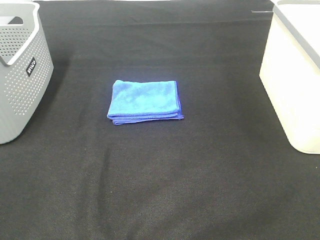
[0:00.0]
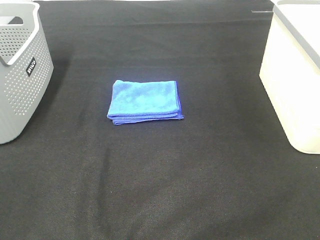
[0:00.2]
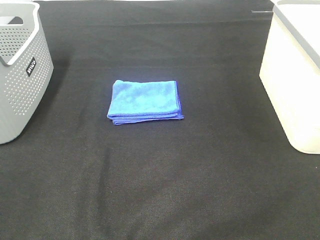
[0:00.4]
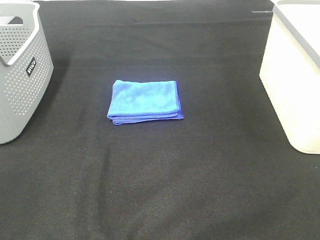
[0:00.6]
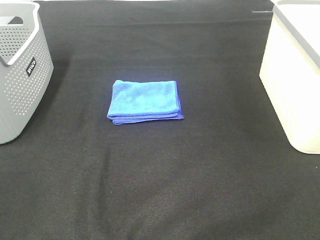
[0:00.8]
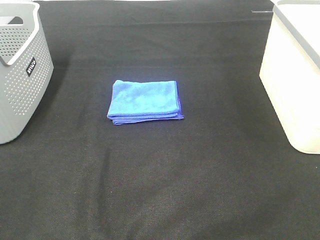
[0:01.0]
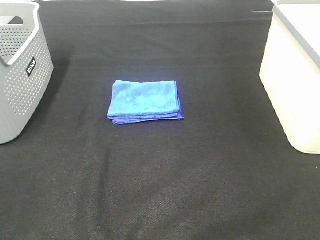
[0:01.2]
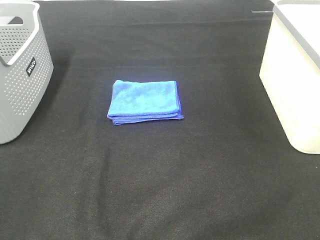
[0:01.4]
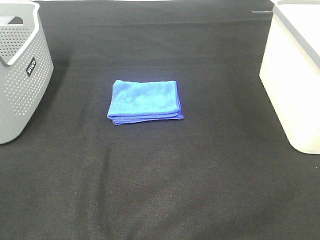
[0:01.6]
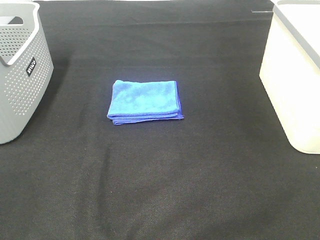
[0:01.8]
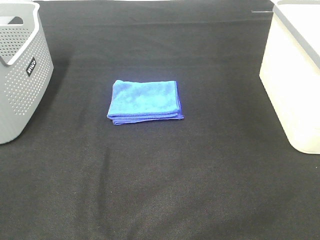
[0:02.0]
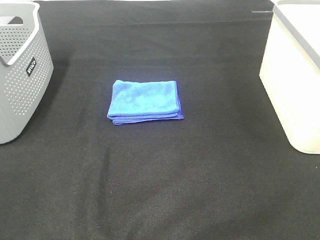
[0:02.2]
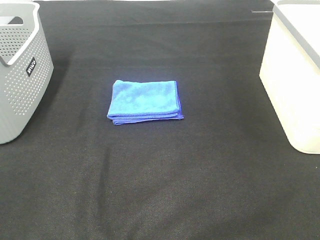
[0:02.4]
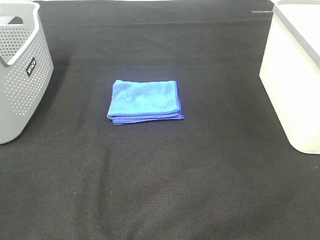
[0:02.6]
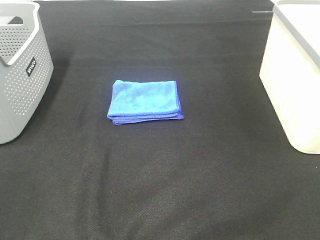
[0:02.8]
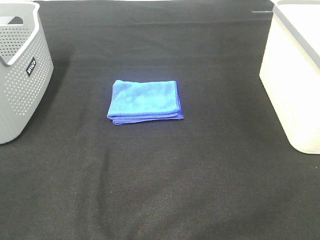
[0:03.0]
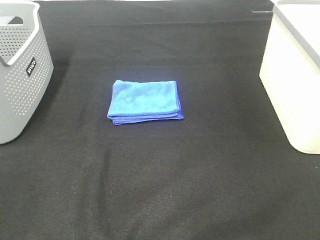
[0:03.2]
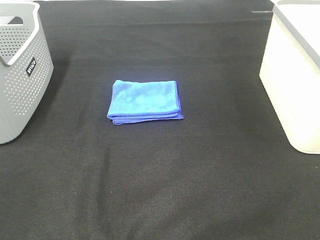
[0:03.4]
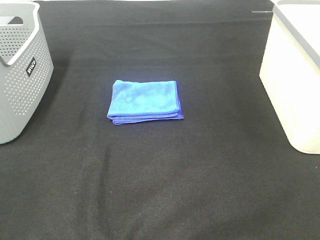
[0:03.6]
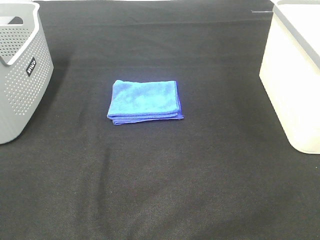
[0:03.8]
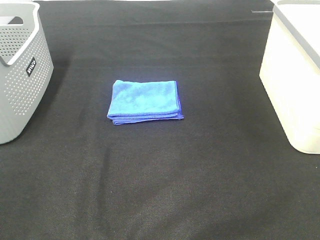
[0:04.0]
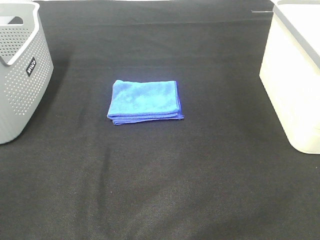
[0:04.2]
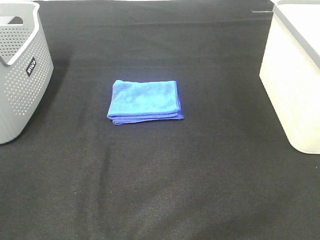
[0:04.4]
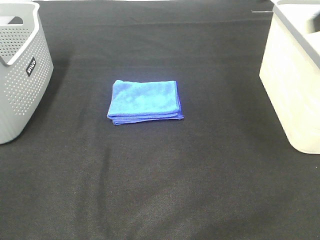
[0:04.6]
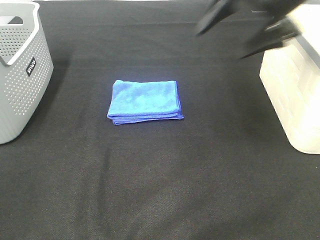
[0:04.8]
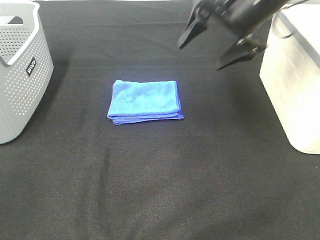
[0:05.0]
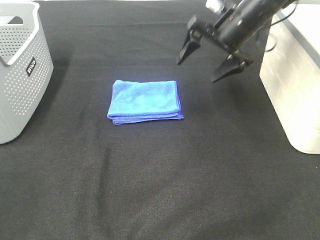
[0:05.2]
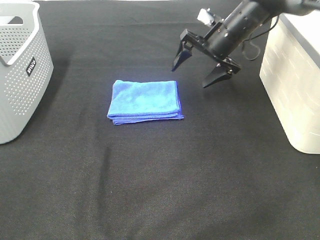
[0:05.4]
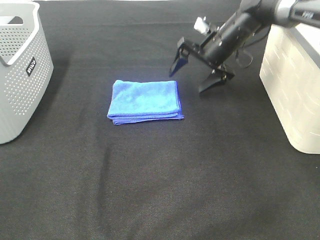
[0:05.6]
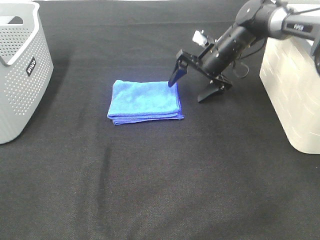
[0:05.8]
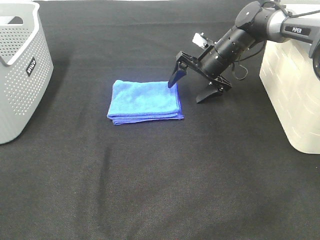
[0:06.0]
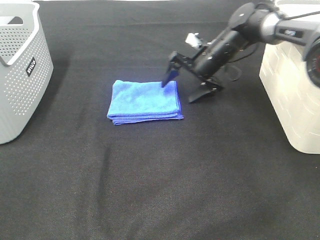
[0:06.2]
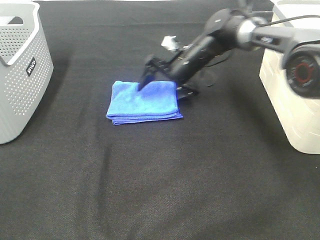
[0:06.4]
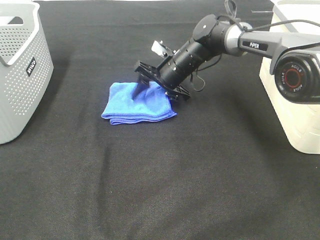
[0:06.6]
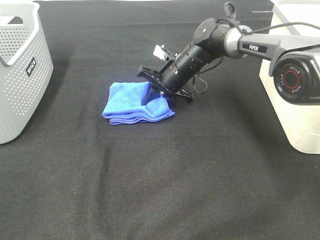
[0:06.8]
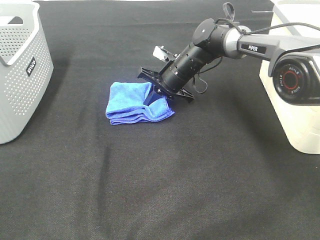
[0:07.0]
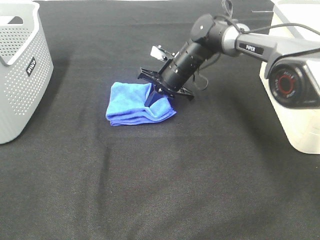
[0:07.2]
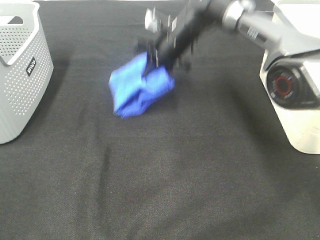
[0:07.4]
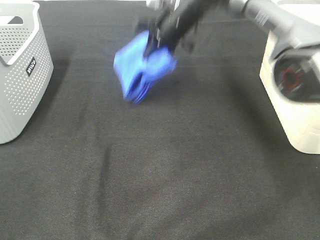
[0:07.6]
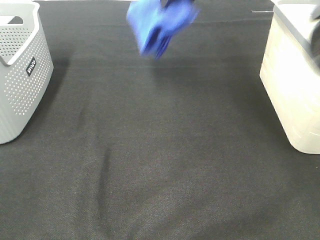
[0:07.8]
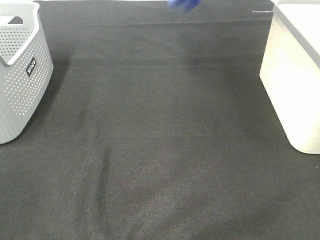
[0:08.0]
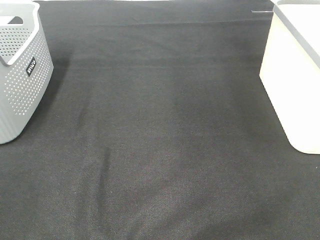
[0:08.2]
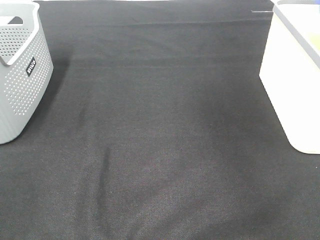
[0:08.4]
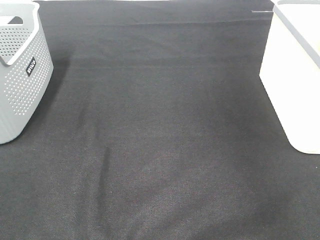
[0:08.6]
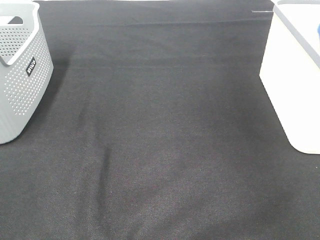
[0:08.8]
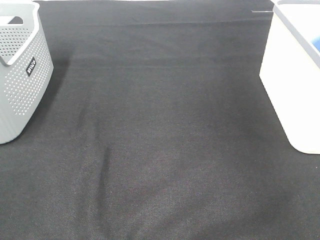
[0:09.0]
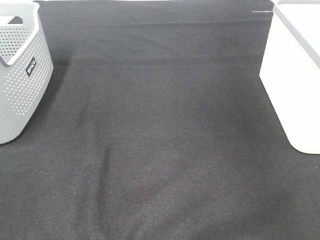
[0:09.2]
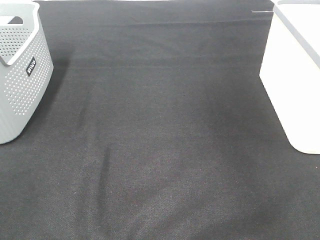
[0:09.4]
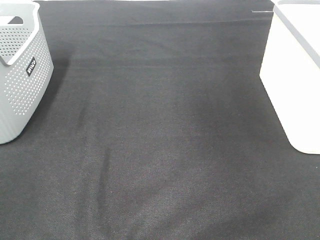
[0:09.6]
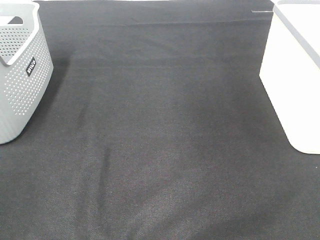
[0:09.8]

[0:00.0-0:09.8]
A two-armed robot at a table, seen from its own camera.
Step, 0:00.0 to 0:06.8: Right hand: grab the folded blue towel.
Step, 0:07.0 to 0:09.2: Right hand: place the blue towel in right basket.
0:00.0 to 0:02.8: Both grippers stay put.
0:04.2 to 0:05.6: The right gripper goes roughly 40 cm forward, downward and to the left.
0:05.6 to 0:07.0: The right gripper heads to the left and downward, covering some 10 cm, and closes up.
0:07.0 to 0:08.4: The right gripper is displaced to the right and upward by roughly 40 cm.

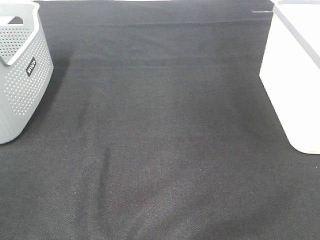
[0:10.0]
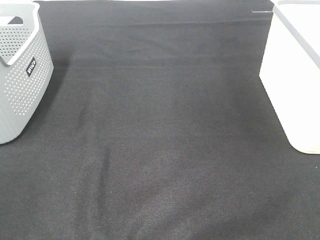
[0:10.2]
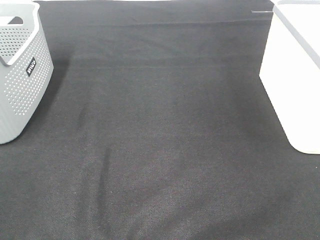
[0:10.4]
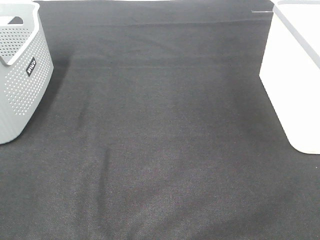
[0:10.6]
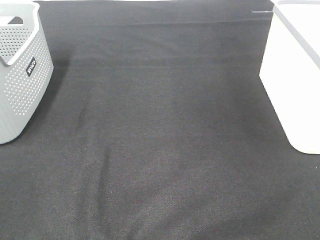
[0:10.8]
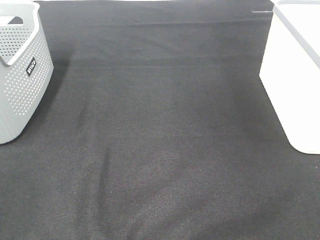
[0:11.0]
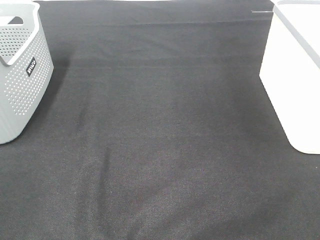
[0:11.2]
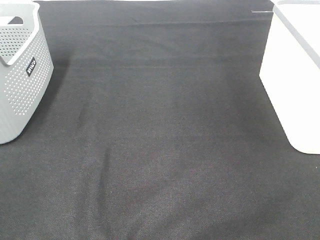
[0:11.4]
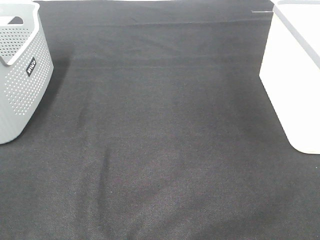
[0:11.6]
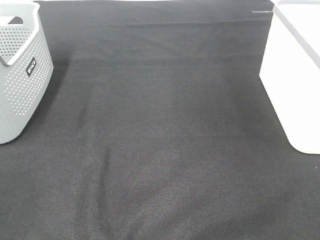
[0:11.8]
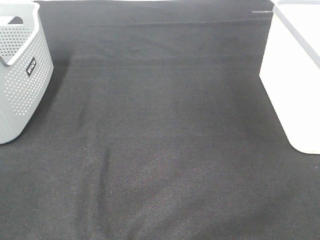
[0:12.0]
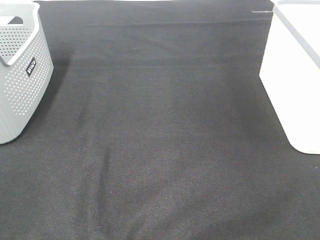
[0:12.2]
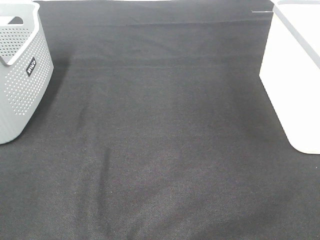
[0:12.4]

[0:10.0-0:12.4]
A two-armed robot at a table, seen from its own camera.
0:11.2 to 0:12.4: Both grippers stay about where they are.

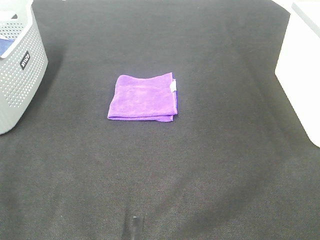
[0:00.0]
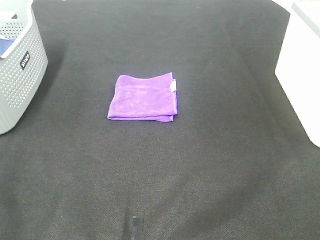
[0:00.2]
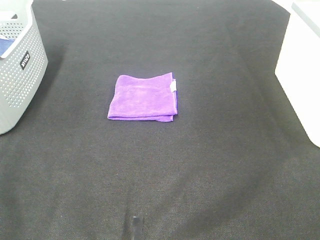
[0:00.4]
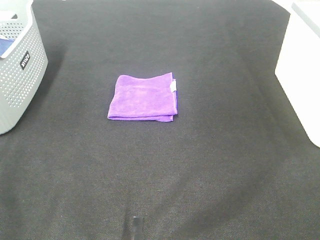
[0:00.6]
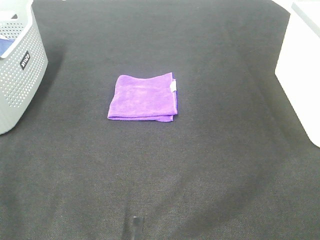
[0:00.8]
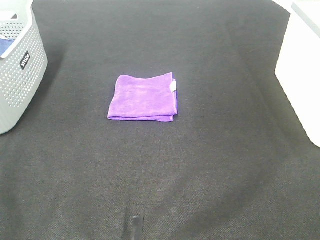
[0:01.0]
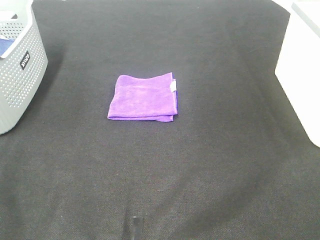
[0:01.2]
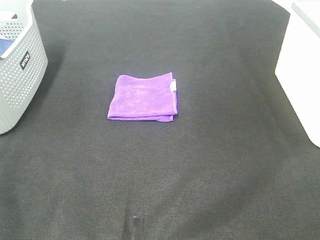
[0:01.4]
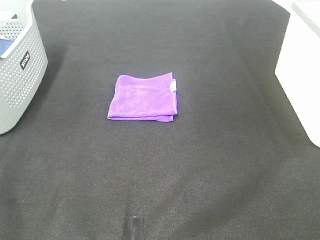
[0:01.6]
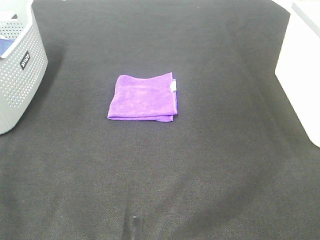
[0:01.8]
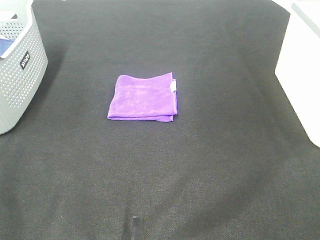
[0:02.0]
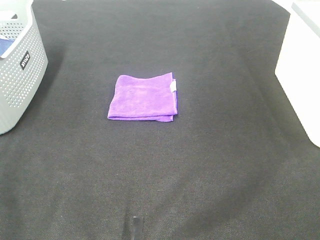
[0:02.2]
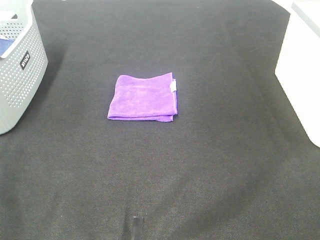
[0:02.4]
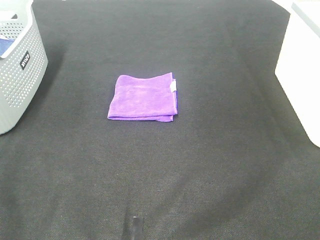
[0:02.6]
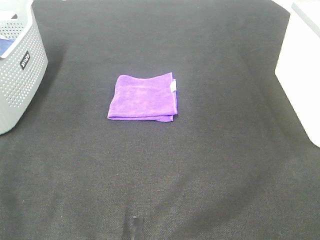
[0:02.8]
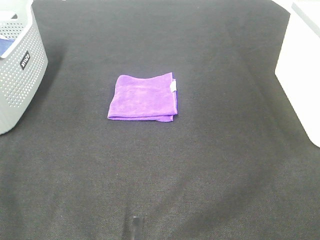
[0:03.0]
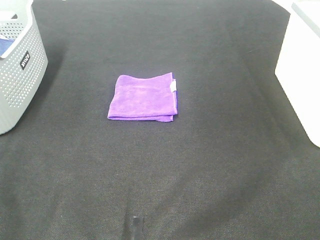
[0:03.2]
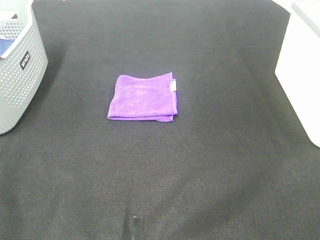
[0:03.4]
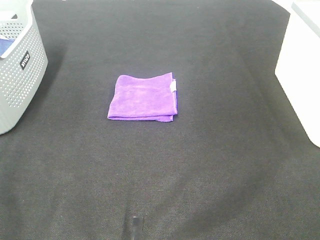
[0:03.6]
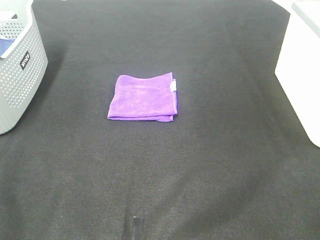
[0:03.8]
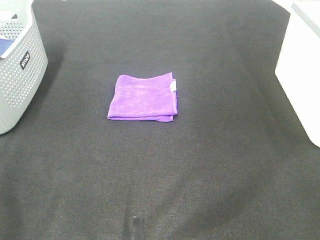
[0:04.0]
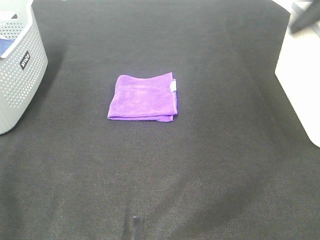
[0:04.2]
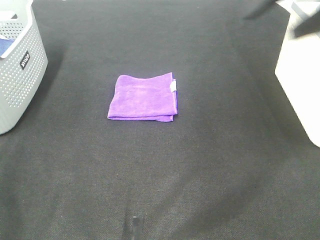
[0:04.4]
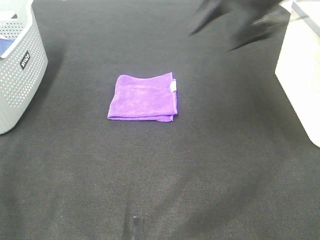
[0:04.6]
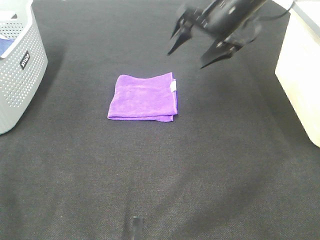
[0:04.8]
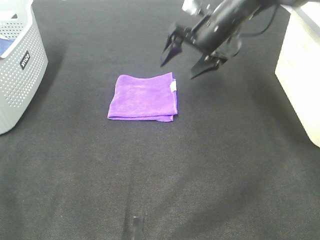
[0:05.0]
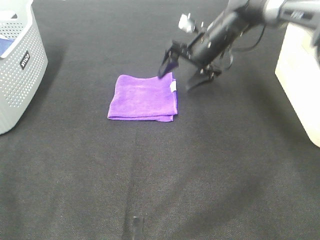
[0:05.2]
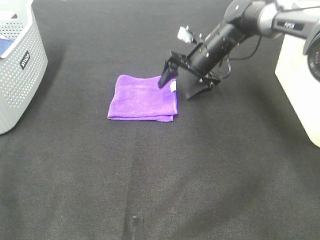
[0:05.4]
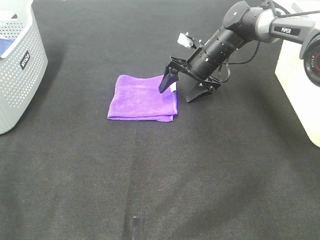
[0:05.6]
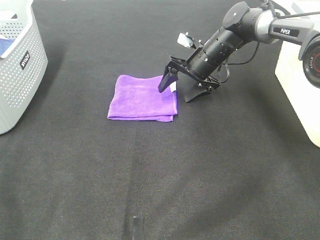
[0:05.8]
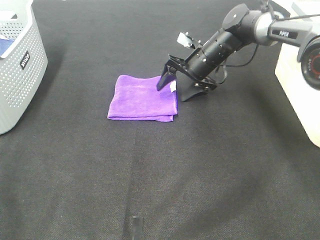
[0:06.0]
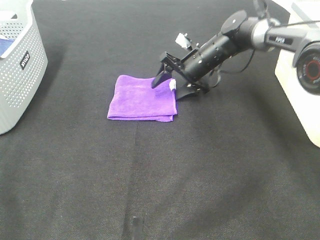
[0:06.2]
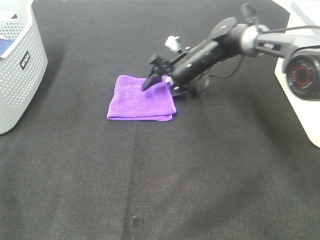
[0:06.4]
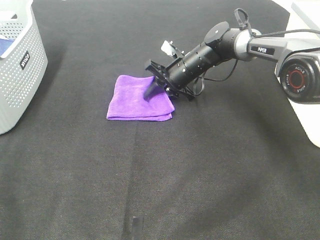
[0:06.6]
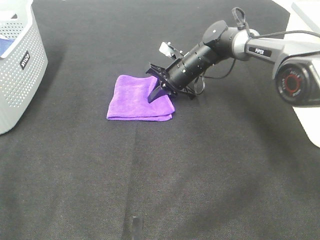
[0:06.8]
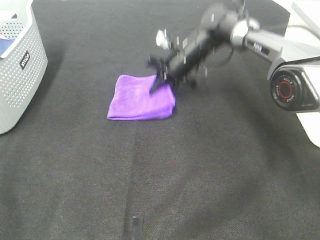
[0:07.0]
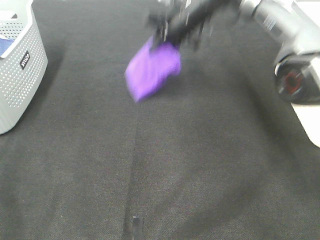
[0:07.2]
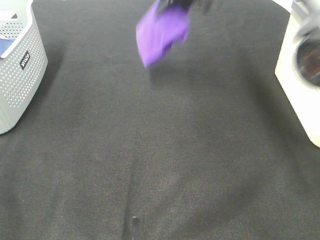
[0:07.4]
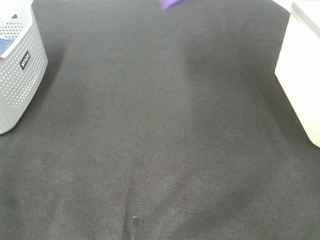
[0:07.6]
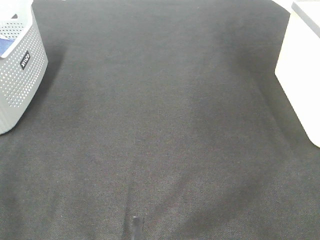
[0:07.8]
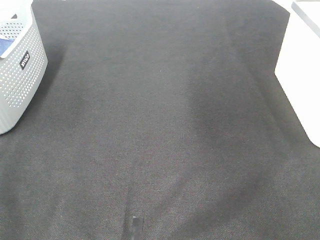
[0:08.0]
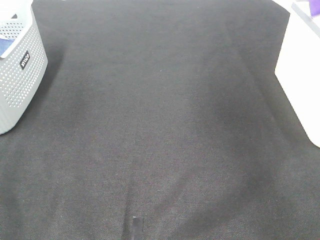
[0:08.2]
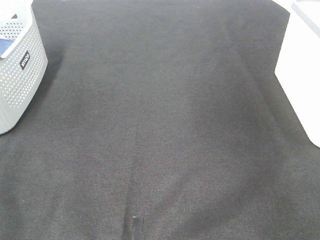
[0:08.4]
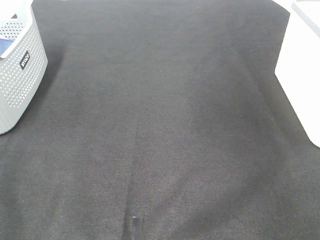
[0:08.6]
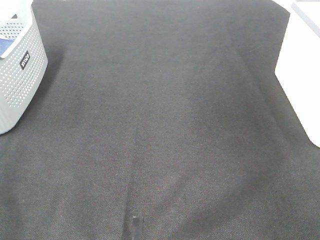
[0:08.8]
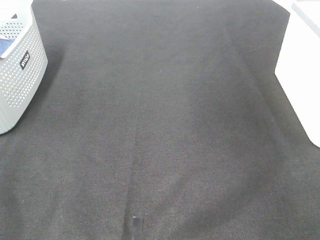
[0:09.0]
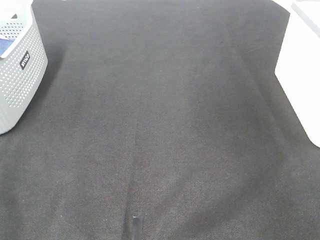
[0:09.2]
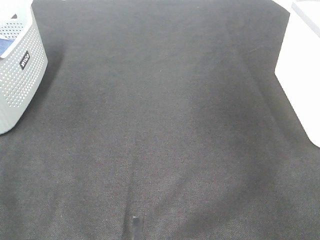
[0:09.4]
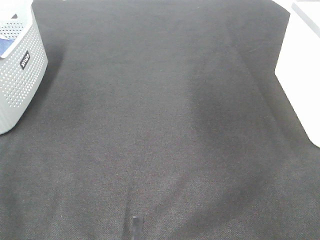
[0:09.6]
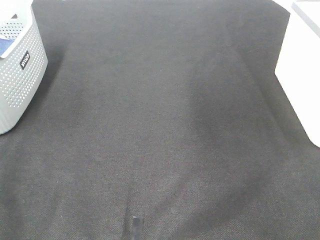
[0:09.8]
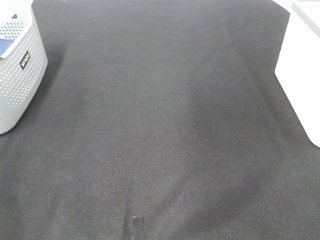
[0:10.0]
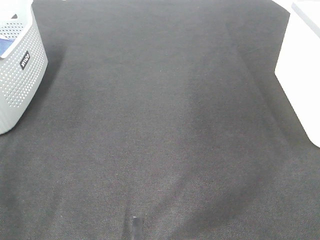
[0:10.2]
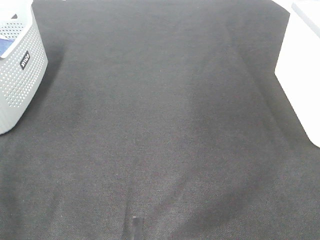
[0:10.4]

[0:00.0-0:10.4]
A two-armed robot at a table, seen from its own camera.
Step, 0:00.0 to 0:06.8: Right hand: grab the folded purple towel.
Step, 0:07.0 to 0:09.0: Right hand: place the purple towel in right basket.
0:00.0 to 0:03.0: Both grippers stay put.
0:03.0 to 0:04.4: The right gripper goes roughly 35 cm forward.
0:04.4 to 0:06.0: The right gripper is displaced downward and forward by about 30 cm.
0:06.0 to 0:07.4: The right gripper travels upward by some 25 cm, and closes.
0:07.4 to 0:09.0: The right gripper heads to the right, covering roughly 35 cm, and opens.
